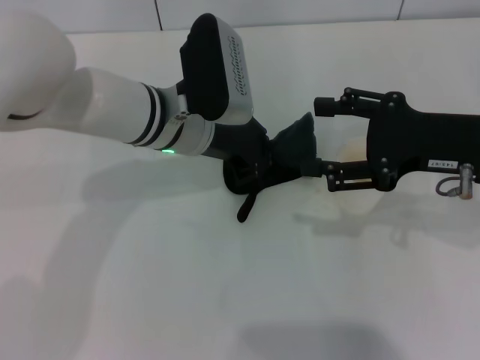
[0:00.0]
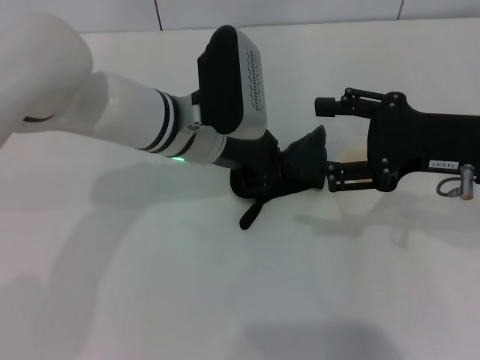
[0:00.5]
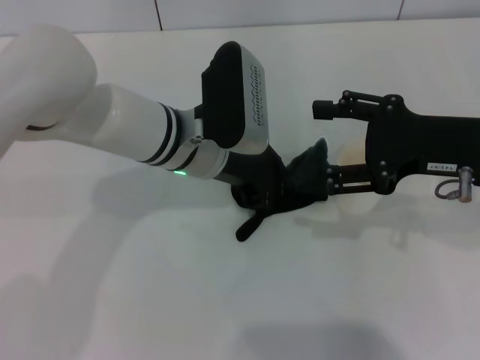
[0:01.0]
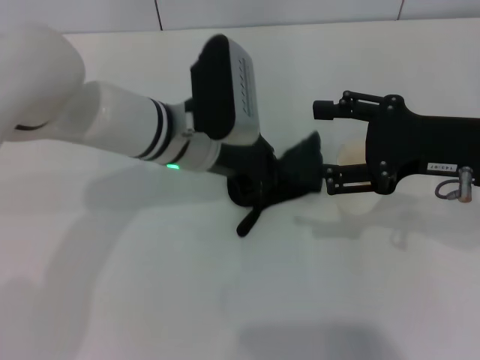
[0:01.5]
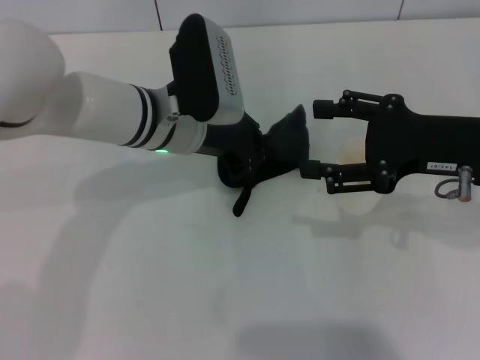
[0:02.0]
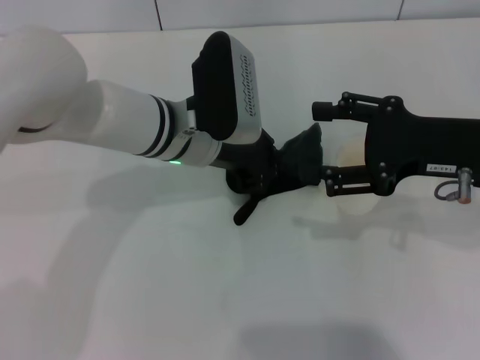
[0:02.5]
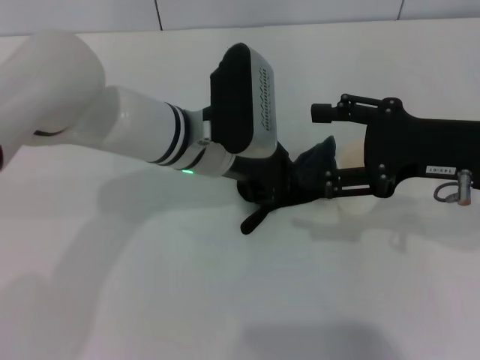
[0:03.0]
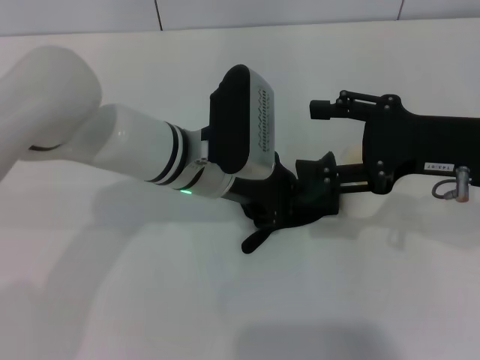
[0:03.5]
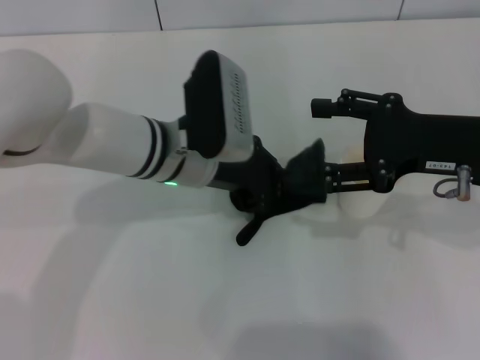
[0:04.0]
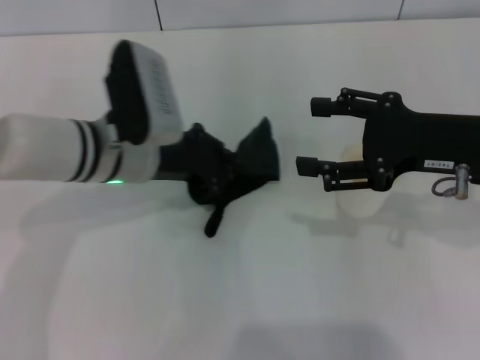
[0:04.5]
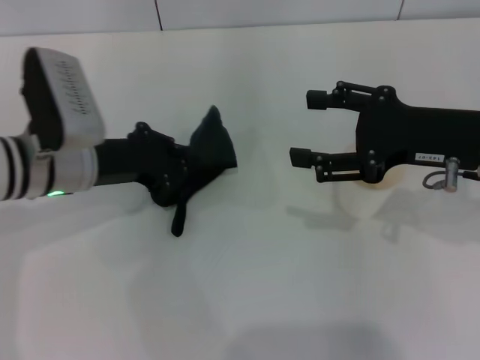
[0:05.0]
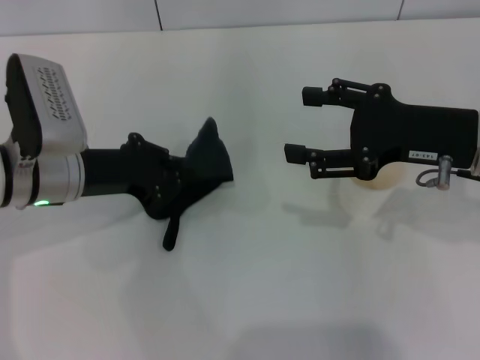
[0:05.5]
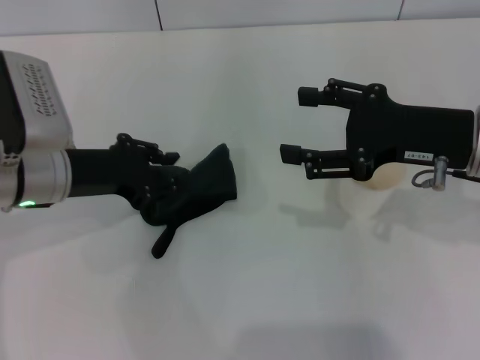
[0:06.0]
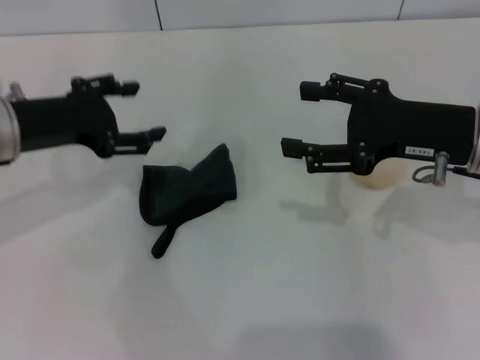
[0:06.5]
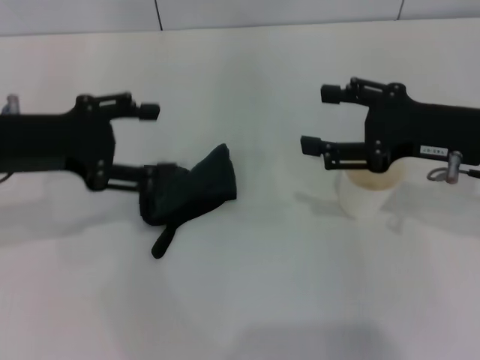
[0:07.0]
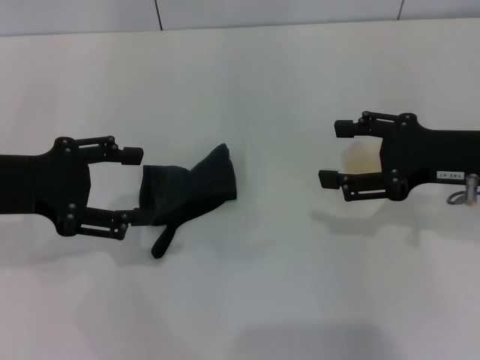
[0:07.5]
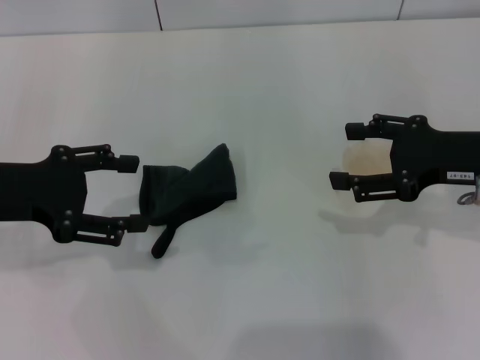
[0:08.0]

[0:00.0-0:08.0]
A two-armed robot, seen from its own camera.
Step, 0:00.0 to 0:04.5: Wipe the stains off the table with the left gripper.
Step, 0:05.0 to 0:06.0: Place the rag on the table with the left gripper.
0:00.0 to 0:04.0: There are only small adjustments of the grippers.
0:04.0 to 0:06.0: The left gripper travels to the left by some 15 cm.
0:06.0 to 0:08.0: The left gripper is displaced to the left and upward by approximately 10 cm, and opens its fingers.
